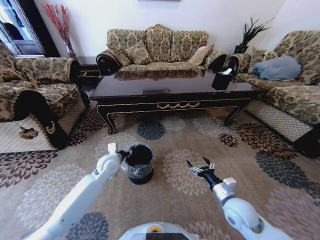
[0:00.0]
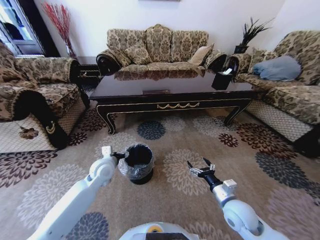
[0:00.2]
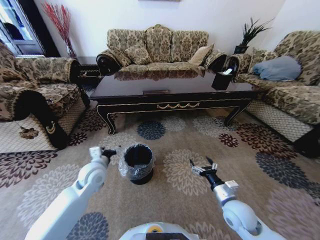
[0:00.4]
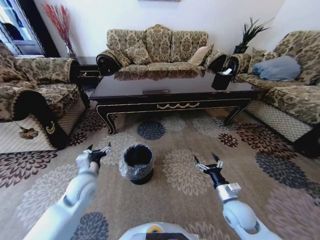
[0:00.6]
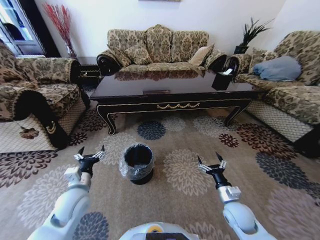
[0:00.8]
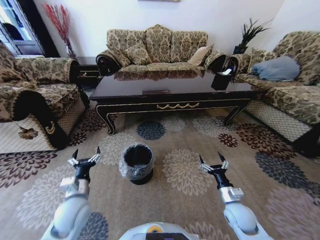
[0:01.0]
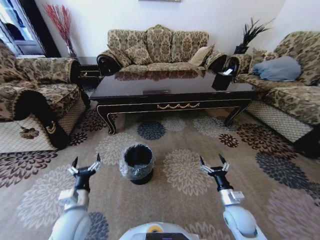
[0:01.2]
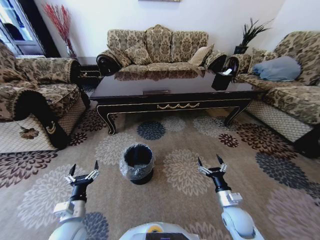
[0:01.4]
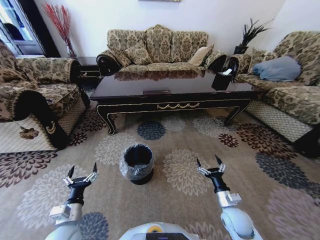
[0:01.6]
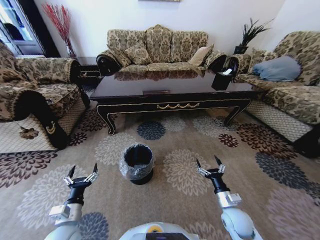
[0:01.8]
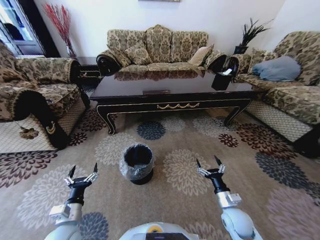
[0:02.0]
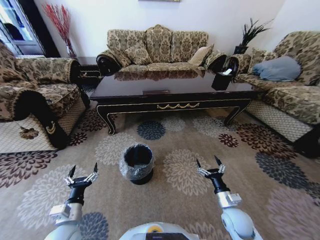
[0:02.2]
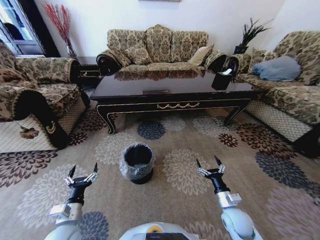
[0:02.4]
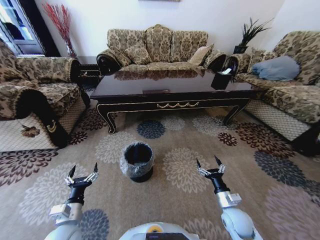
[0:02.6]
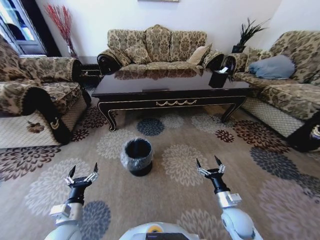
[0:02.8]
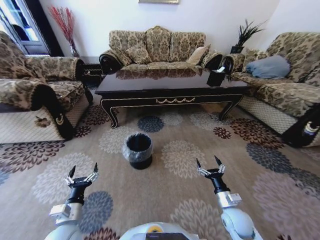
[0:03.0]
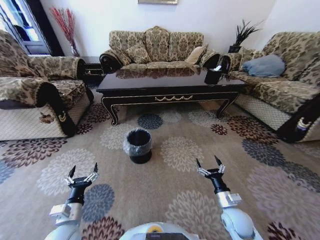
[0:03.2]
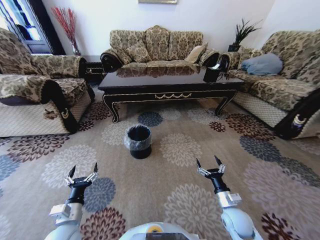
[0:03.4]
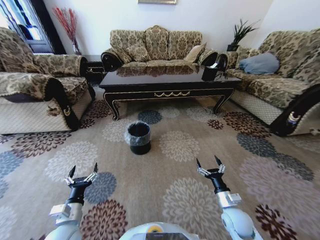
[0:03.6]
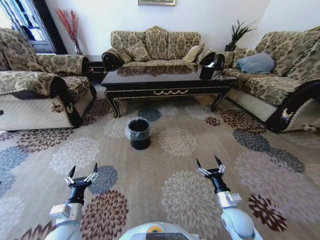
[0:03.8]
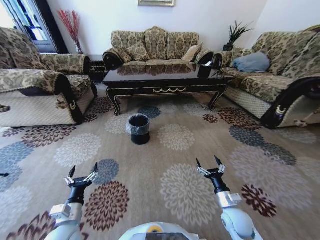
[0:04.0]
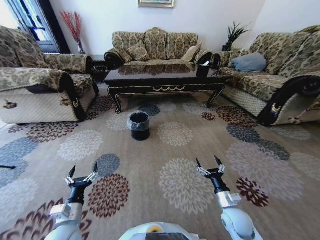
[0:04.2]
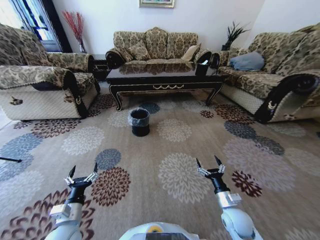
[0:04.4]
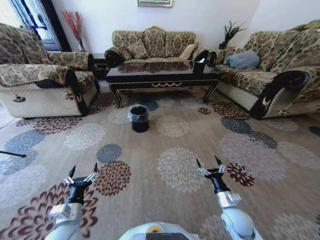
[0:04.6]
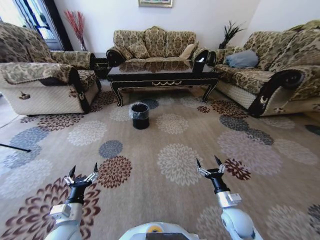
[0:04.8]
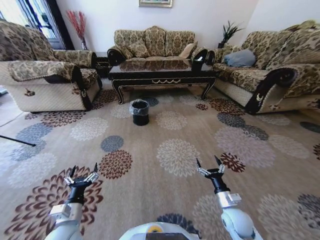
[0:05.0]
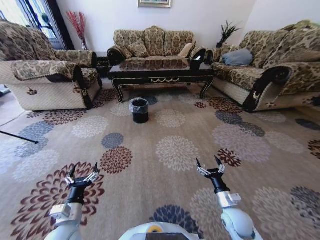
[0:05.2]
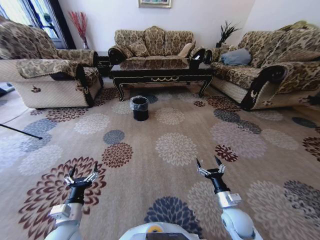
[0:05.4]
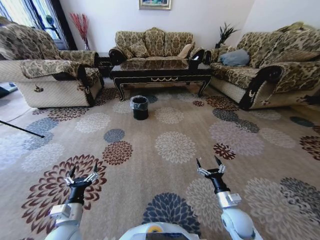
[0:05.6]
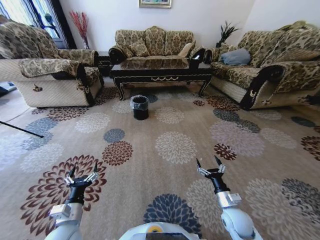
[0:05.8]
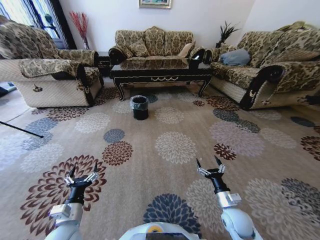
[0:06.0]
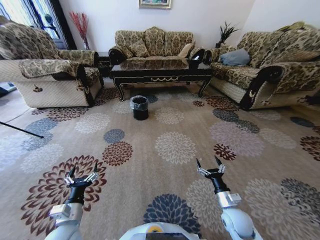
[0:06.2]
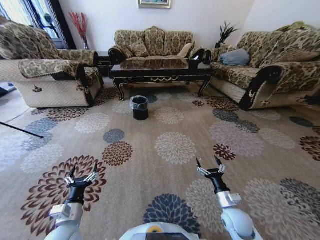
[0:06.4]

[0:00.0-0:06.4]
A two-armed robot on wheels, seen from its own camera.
Task of the whole recording: Move to the front of the table and pick up the trash from the floor, then place it into the trash bin.
0:00.0 to 0:01.6: The right gripper moves downward, roughly 10 cm; the left gripper goes roughly 25 cm backward, and opens its fingers.
